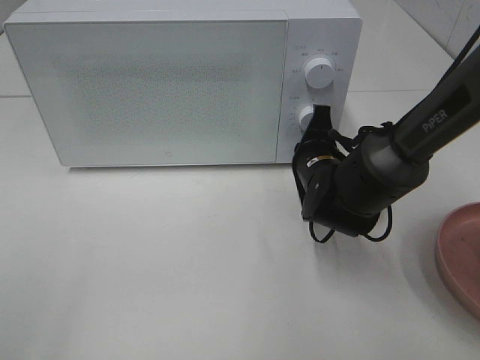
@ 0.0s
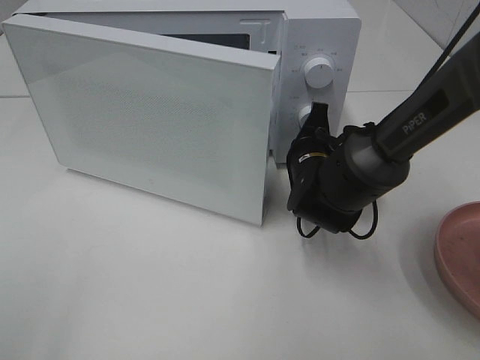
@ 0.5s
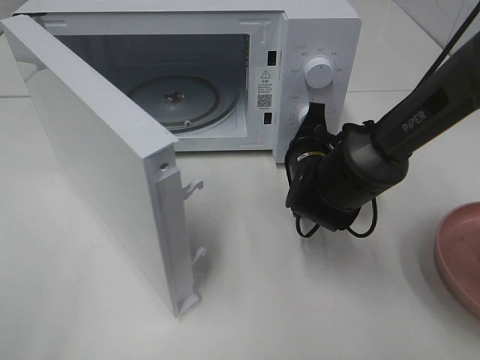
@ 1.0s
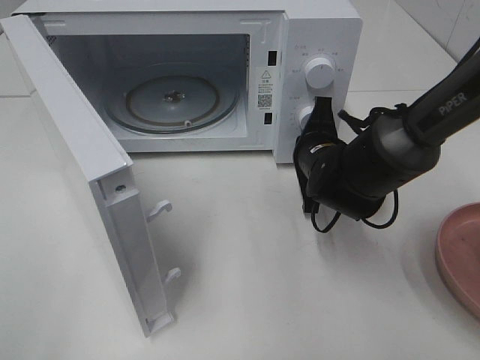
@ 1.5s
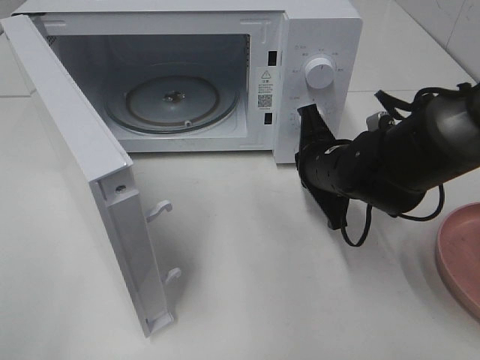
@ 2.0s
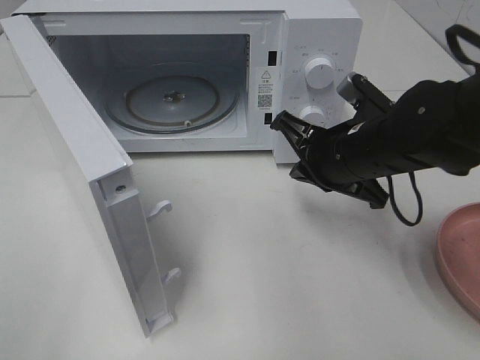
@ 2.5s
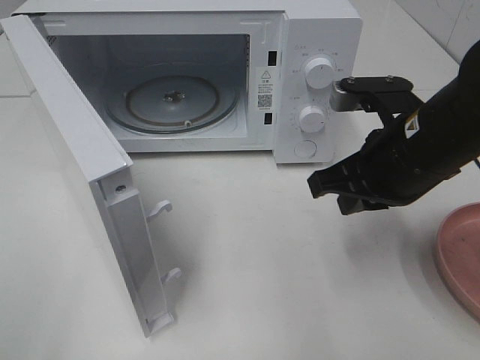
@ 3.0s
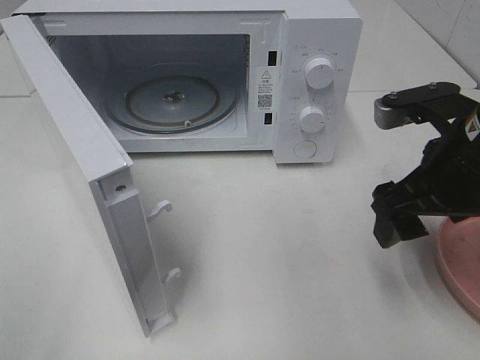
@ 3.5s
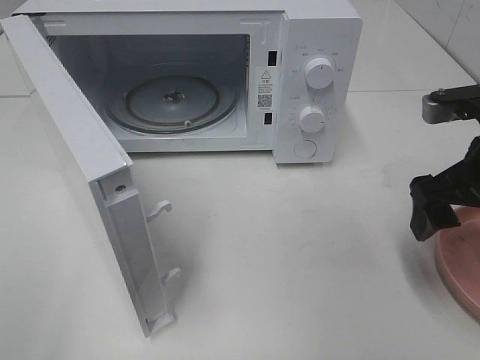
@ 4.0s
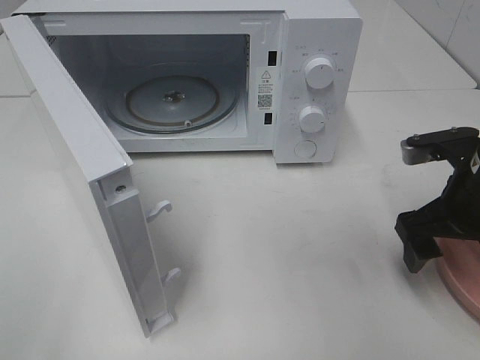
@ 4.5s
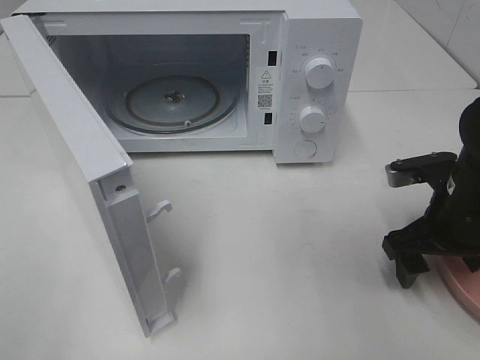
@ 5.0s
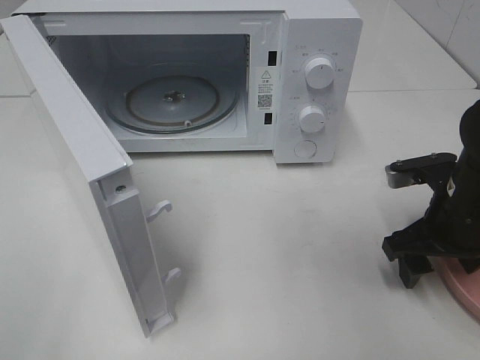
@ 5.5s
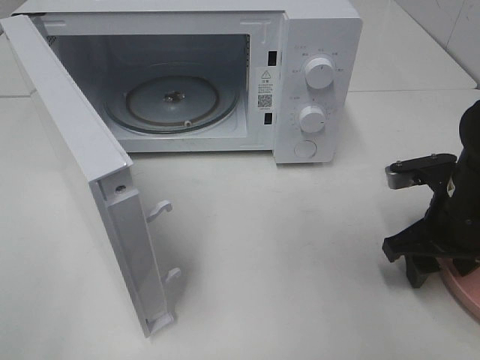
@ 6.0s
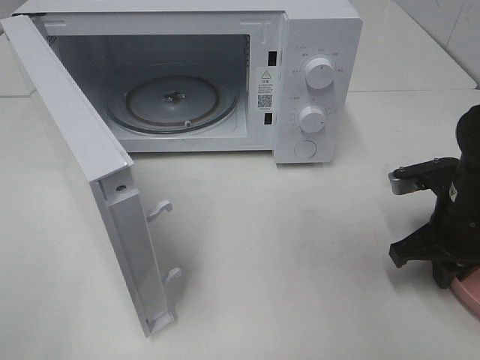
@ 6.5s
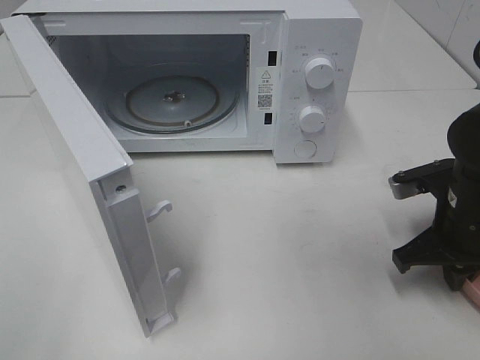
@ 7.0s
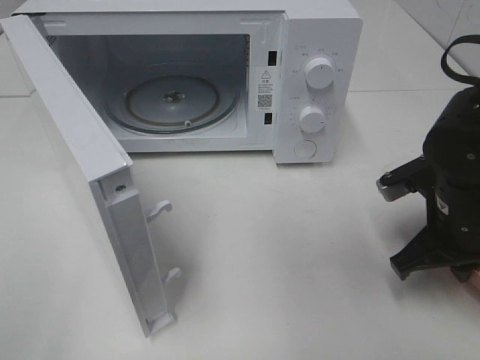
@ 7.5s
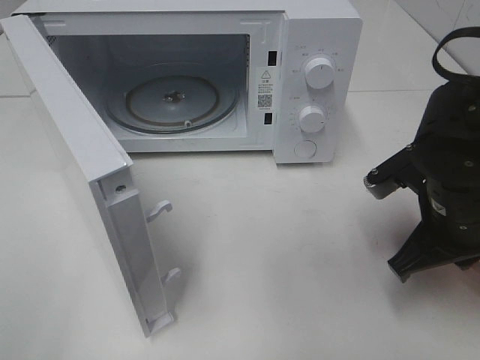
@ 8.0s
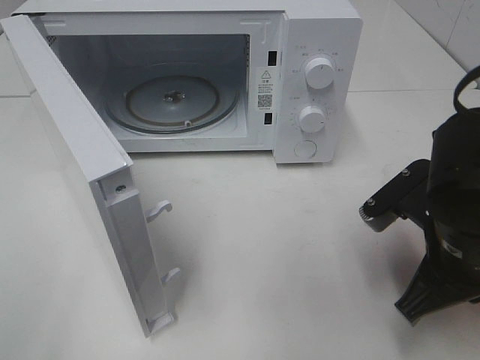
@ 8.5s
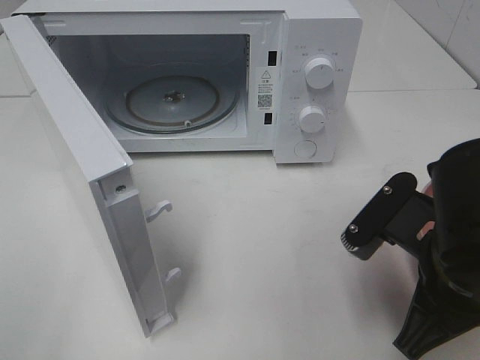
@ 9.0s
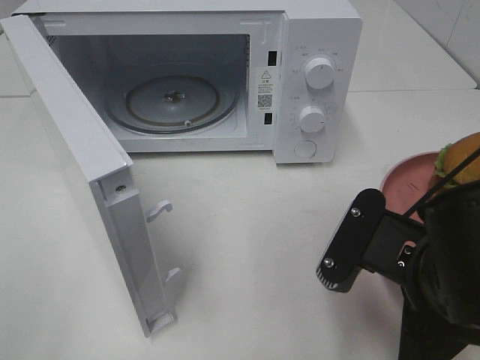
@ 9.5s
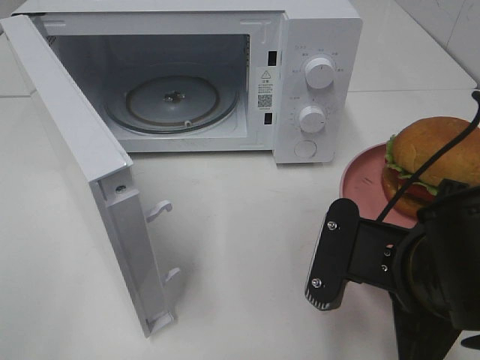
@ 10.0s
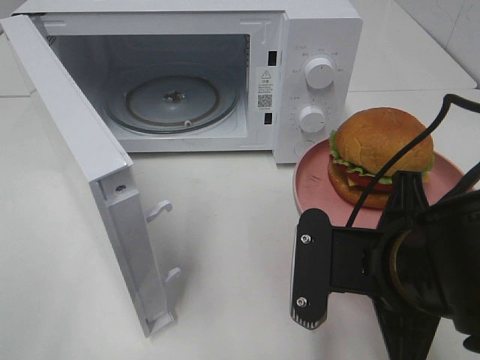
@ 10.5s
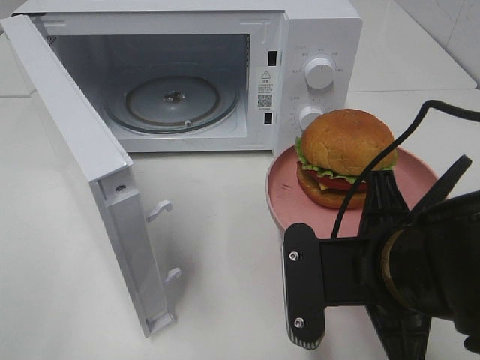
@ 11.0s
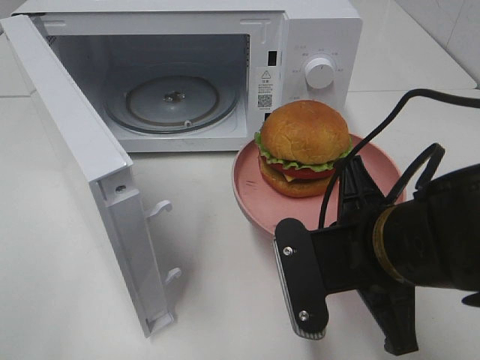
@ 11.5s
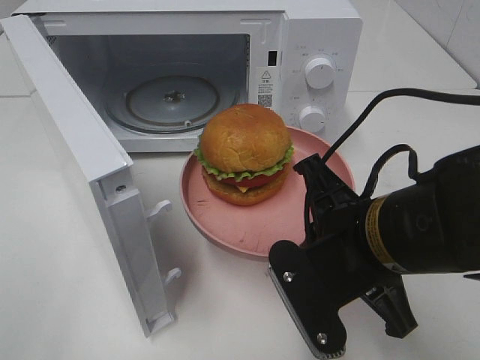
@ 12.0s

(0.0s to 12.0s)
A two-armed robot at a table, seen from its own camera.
Task of the whole recording: Heat the burger.
Step, 2.0s - 7.0s: Right hand: grab the plate with the hamburger.
2.0s - 4.0s: The right gripper moves to the right, upward and backward, approximately 15 cm, and opens its fingers.
4.0s - 6.0s: The right gripper moves downward, roughly 10 cm.
6.0s - 8.0s: The right gripper moves roughly 5 cm, and closes its fingers.
8.0s - 10.0s: The right gripper travels backward and to the left by about 10 cm.

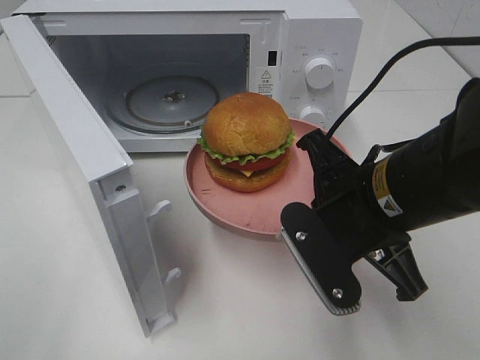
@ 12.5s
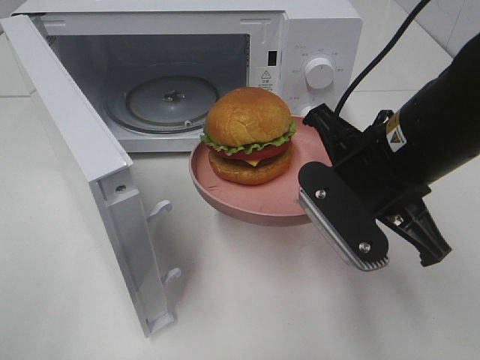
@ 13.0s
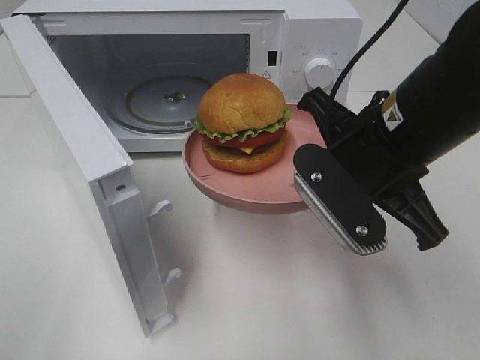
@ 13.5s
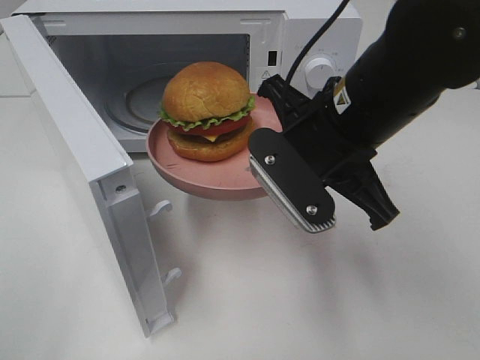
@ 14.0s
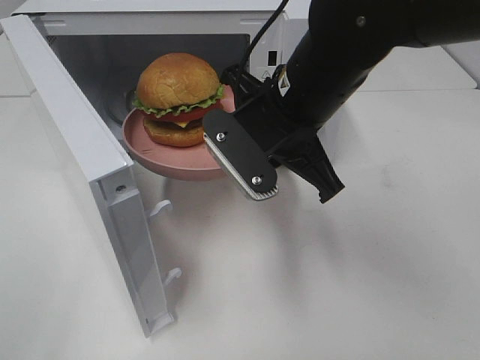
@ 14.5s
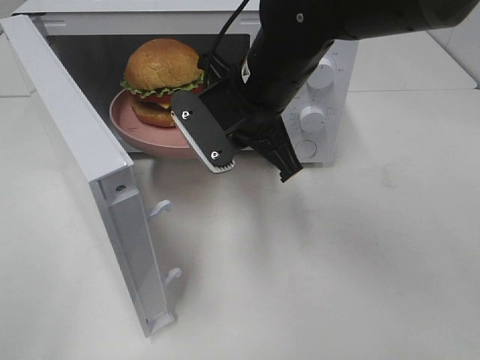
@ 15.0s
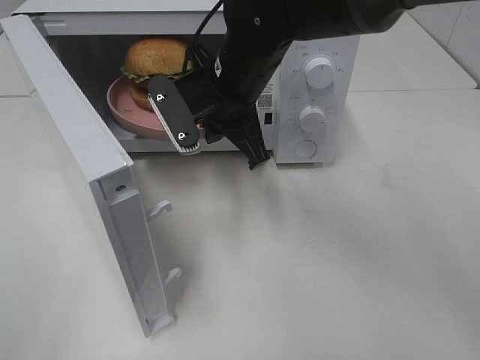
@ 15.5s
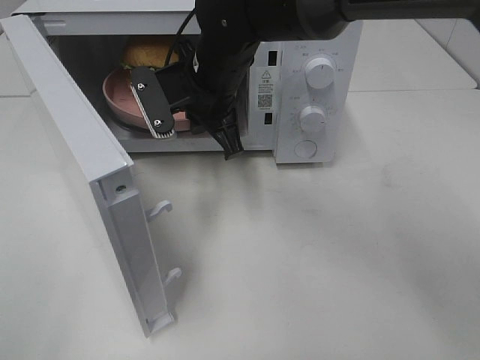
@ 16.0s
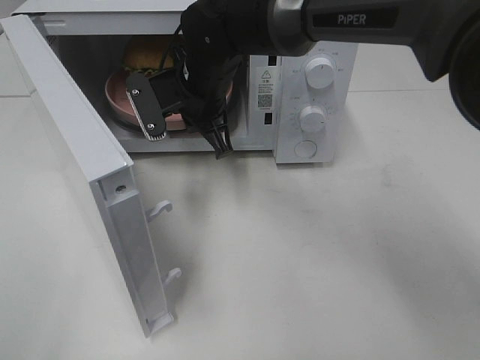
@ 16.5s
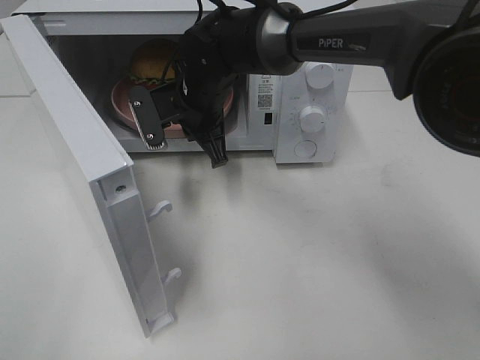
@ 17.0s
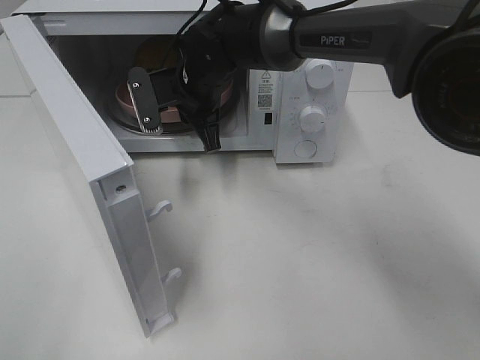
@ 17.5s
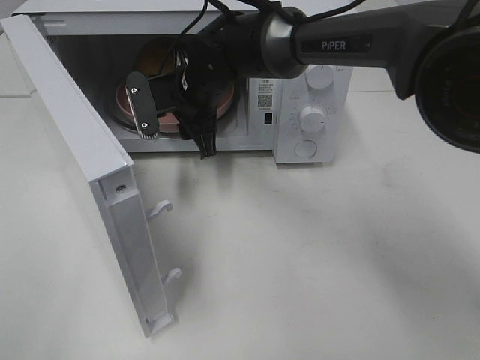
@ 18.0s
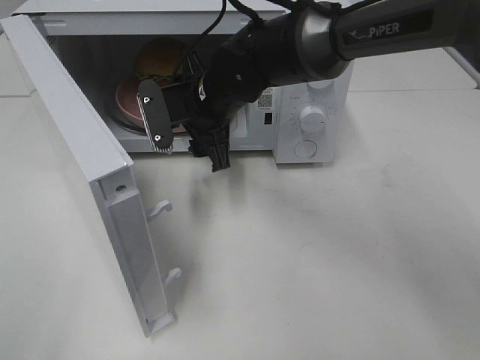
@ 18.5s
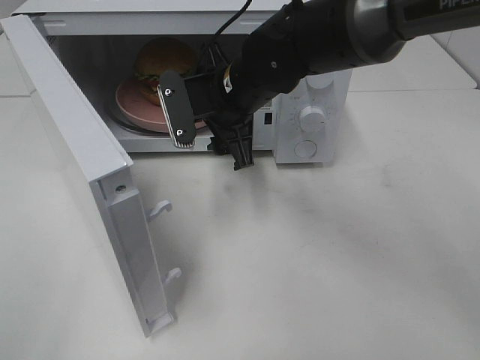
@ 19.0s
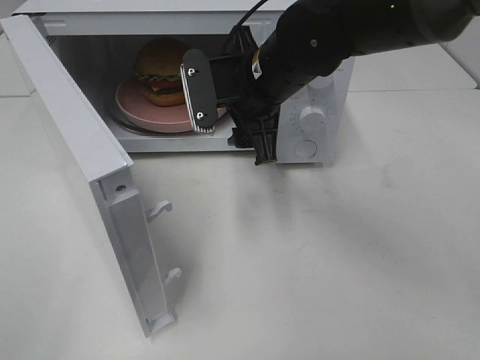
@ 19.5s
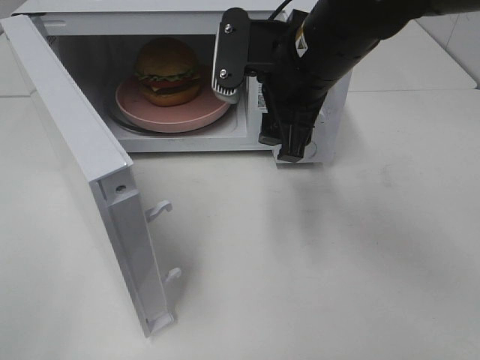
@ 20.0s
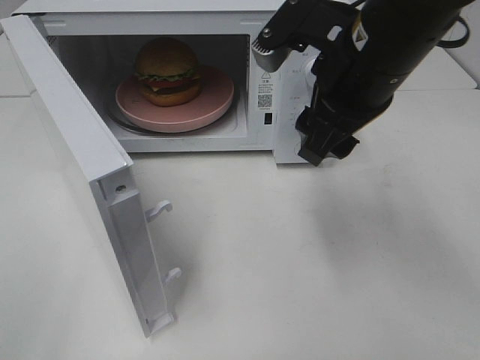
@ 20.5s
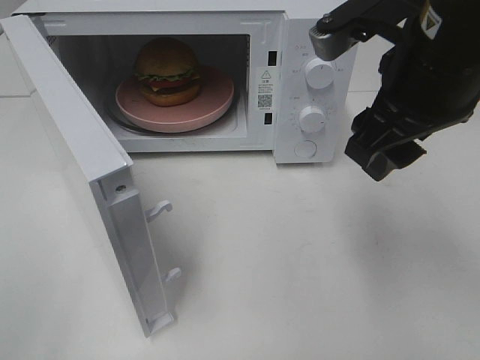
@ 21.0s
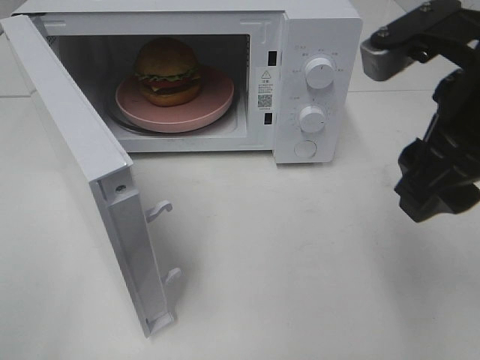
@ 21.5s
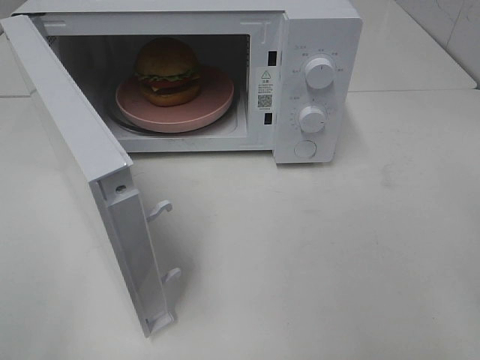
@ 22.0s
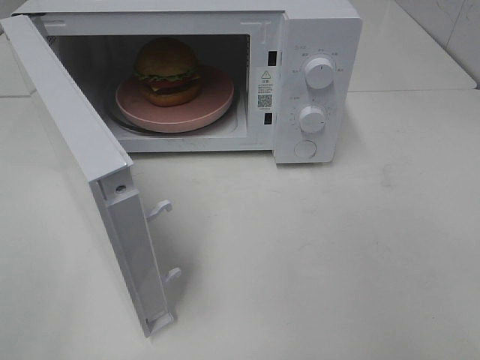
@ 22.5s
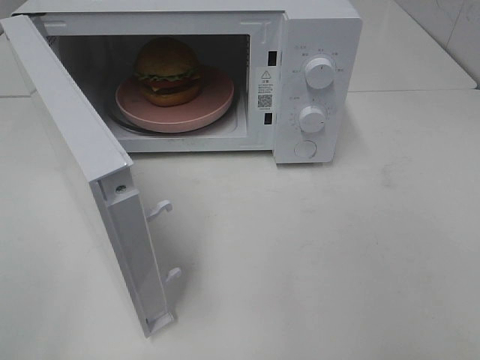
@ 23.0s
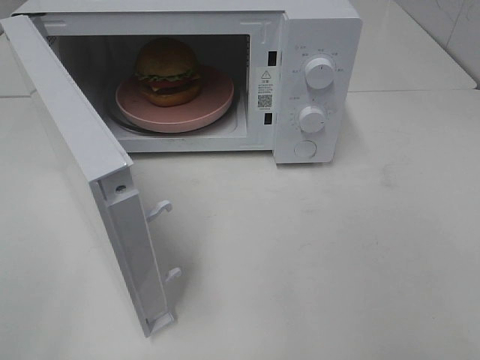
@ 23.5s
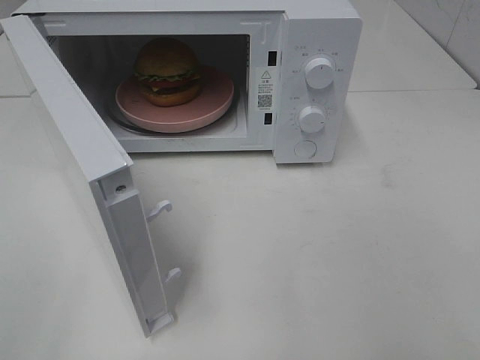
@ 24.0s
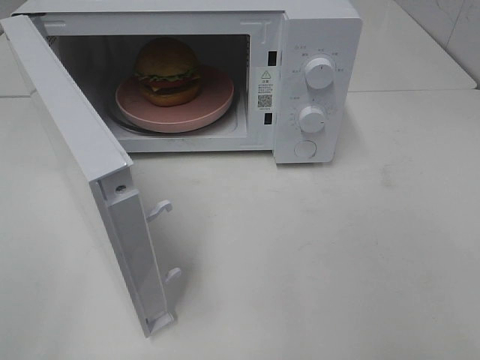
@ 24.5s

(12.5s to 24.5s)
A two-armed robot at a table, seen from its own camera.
Task of the whole recording: Heat the burger.
Step, 12.5s - 18.0s: Right hand: place the plate in the microwave.
12.5s - 14.5s: The right gripper is displaced forward and to the left by some 10 cm.
14.5s - 16.5s: The right gripper goes approximately 15 cm forward and to the left.
16.5s - 18.5s: The right gripper opens its fingers.
18.5s - 20.5s: The right gripper heads to the right, backward and upward, covering about 20 cm.
20.5s - 22.5s: The right gripper travels backward and to the right by roughly 30 cm.

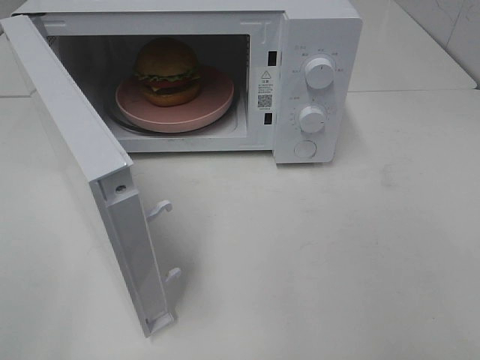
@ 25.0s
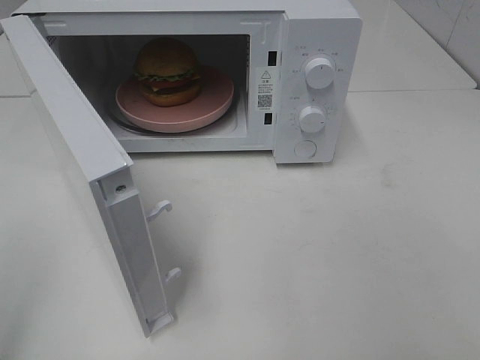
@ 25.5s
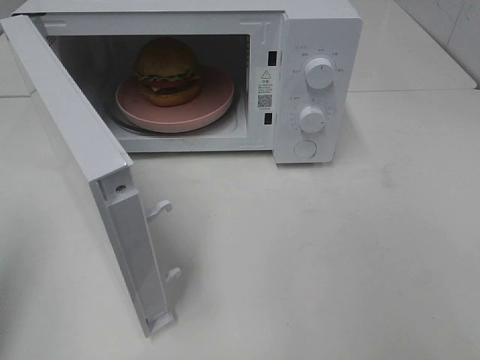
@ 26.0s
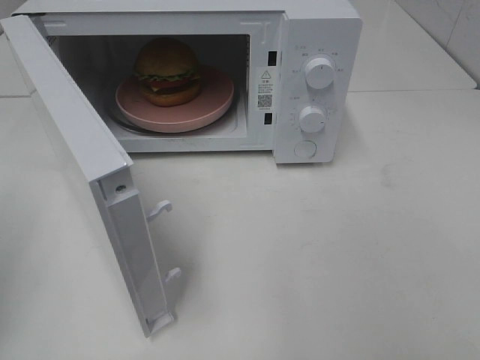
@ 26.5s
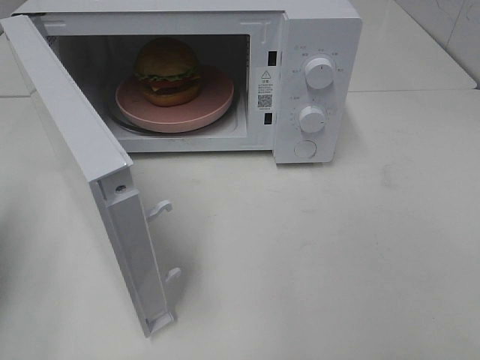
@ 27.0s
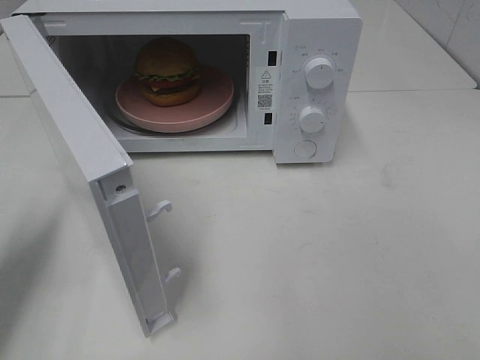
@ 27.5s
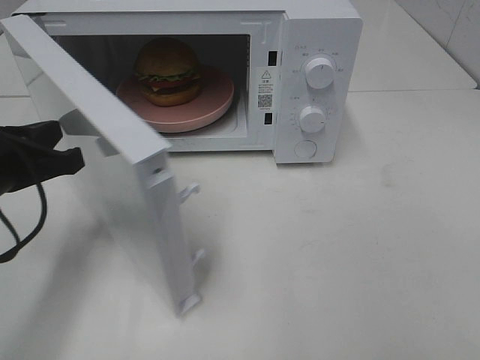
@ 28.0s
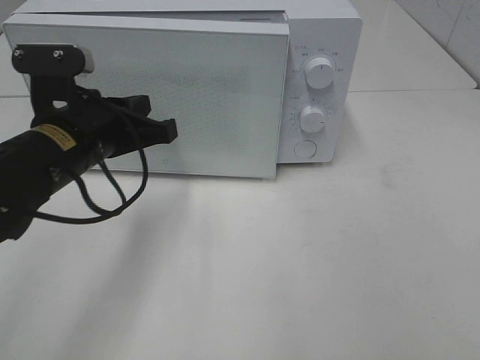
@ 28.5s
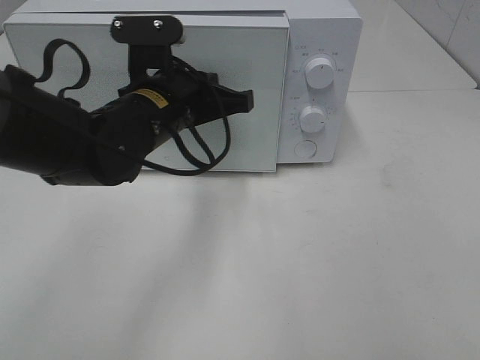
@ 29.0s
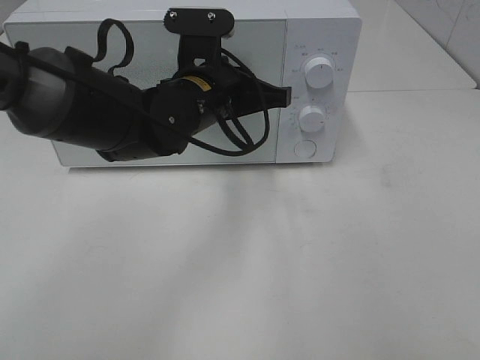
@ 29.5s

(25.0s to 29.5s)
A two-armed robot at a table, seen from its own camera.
Task of the whole recording: Heat the burger.
25.0s - 27.0s: The left gripper heads forward, covering roughly 20 cm, and closes.
27.0s - 29.5s: The left gripper moves to the right and forward, some 35 cm.
